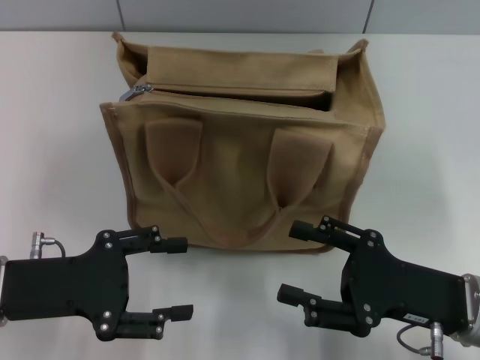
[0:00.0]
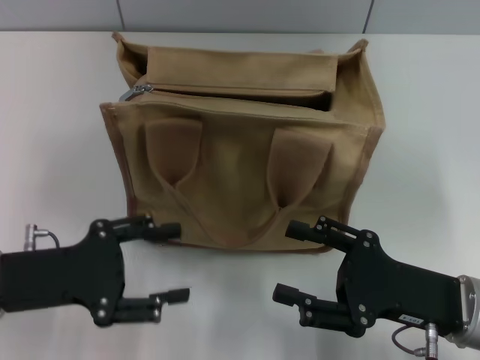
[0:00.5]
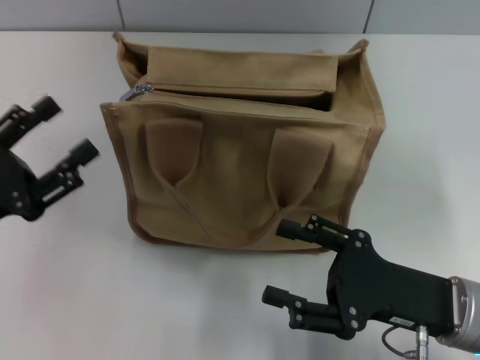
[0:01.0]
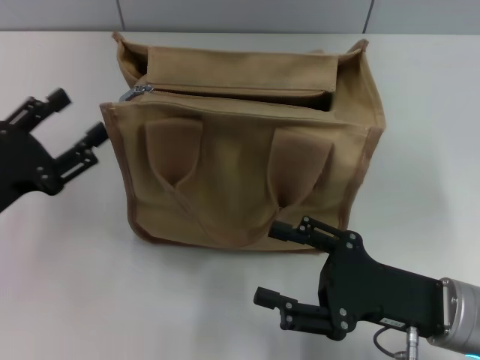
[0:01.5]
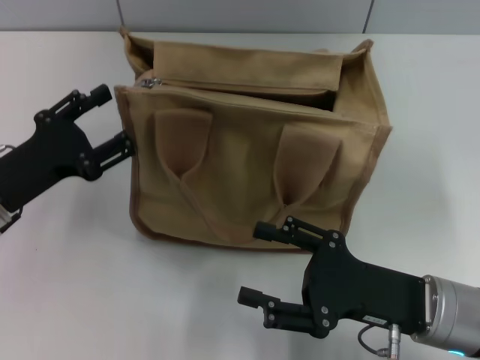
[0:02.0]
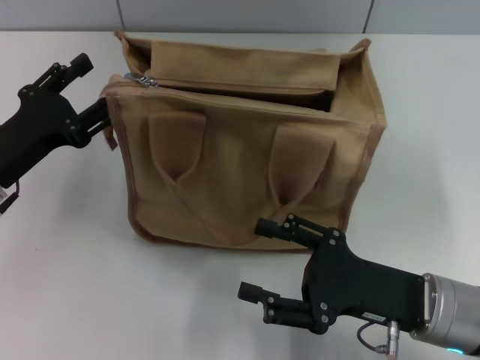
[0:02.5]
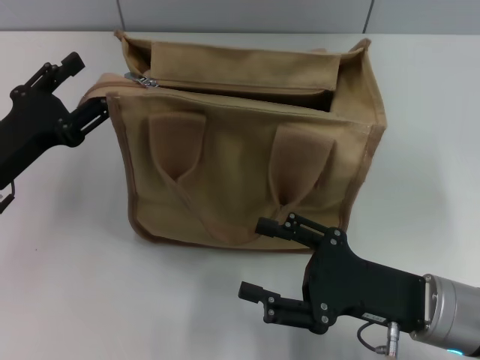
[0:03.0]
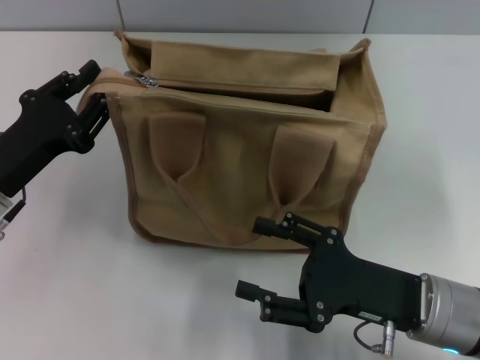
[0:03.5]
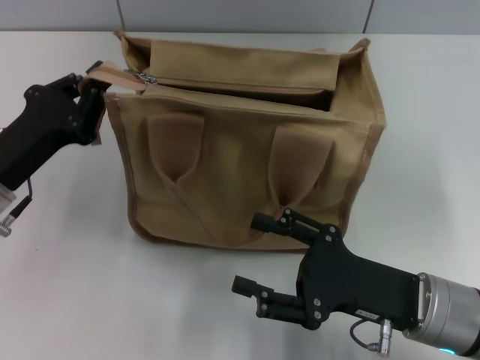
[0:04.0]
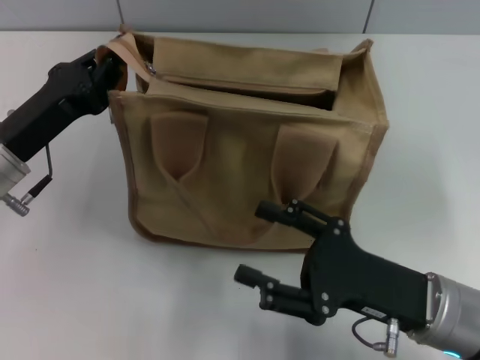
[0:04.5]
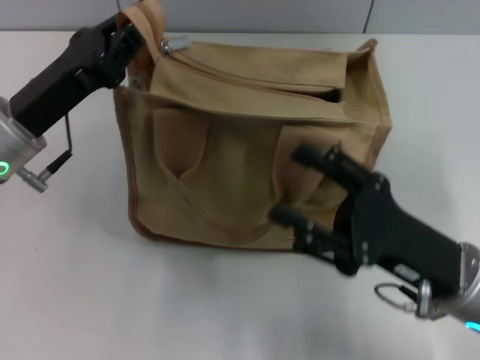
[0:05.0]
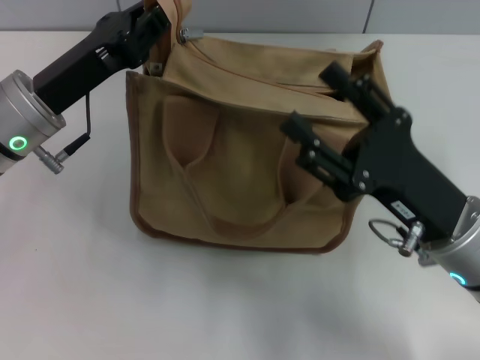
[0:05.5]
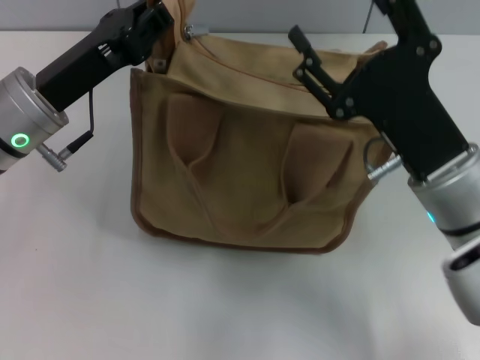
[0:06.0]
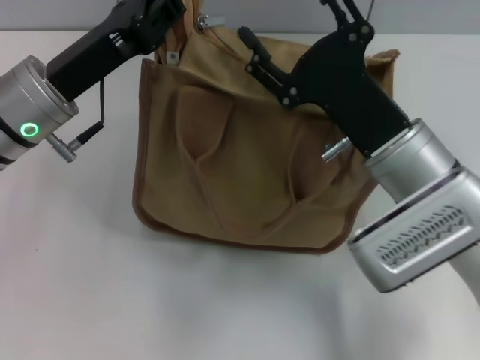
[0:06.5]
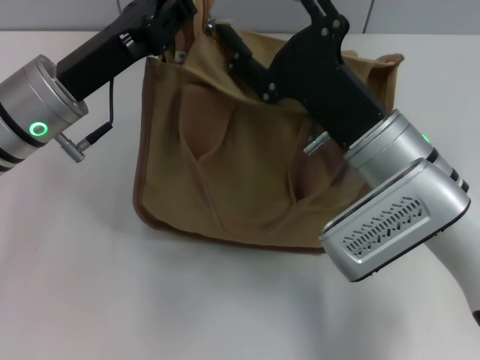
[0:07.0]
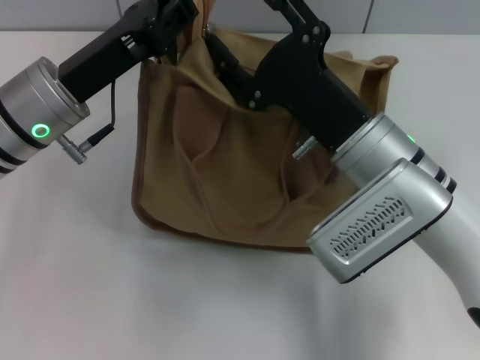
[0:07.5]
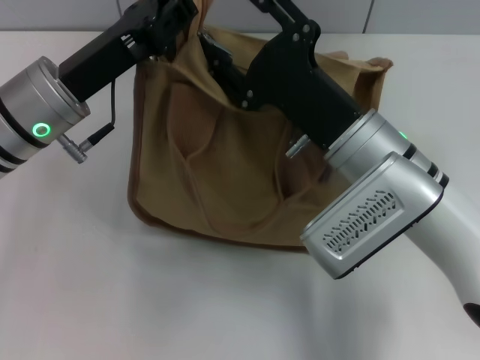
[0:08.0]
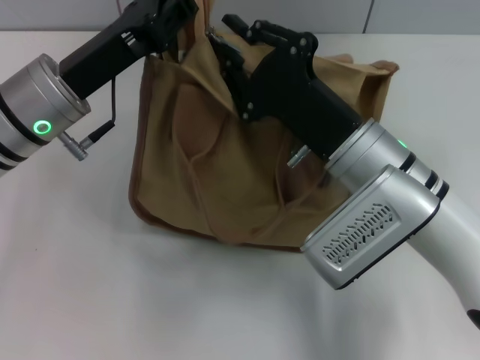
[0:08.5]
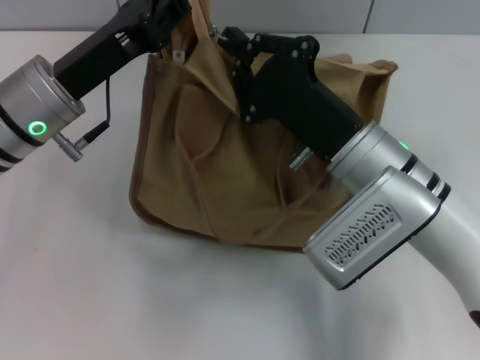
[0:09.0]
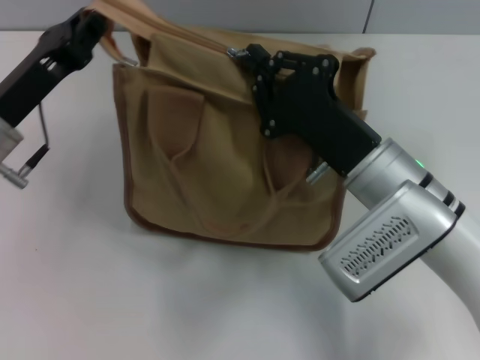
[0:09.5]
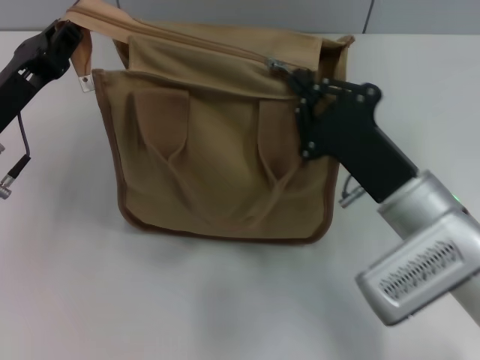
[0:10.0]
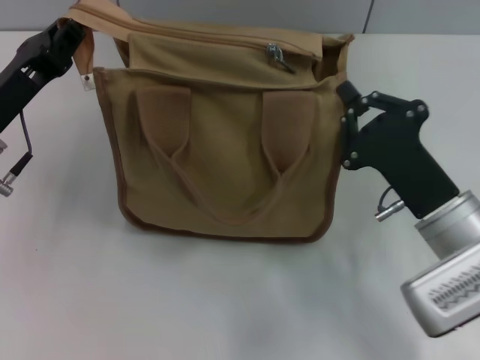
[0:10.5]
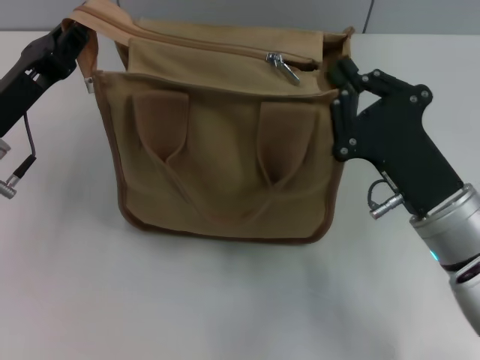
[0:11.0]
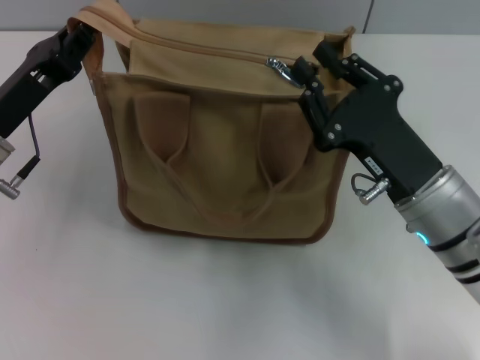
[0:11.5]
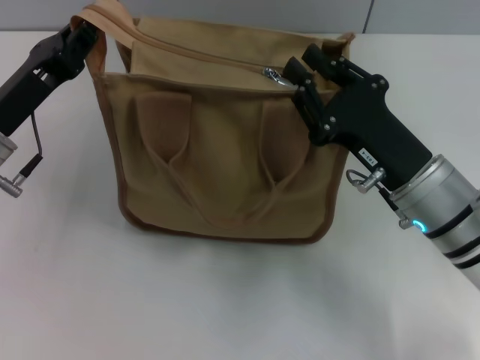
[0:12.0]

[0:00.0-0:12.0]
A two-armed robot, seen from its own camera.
0:02.0 to 0:04.0: The left gripper closes.
0:04.0 to 0:06.0: The right gripper heads upward and forward, covering roughly 10 cm; the left gripper travels forward, upward and to the right by roughly 10 cm.
0:06.0 to 0:08.0: The right gripper heads to the left, covering roughly 5 cm.
0:08.0 to 0:10.0: The left gripper shifts about 5 cm to the left; the right gripper heads to the right, covering roughly 5 cm, and closes its fingers.
0:10.0 to 0:12.0: The right gripper opens its fingers.

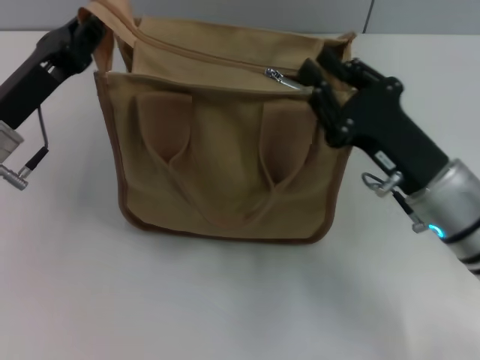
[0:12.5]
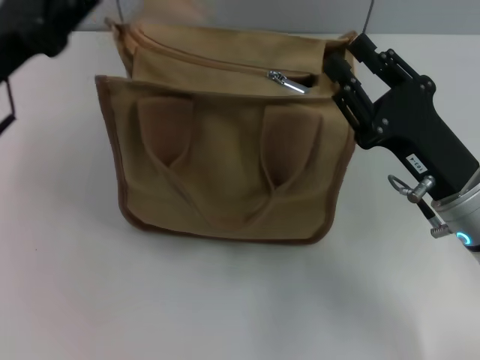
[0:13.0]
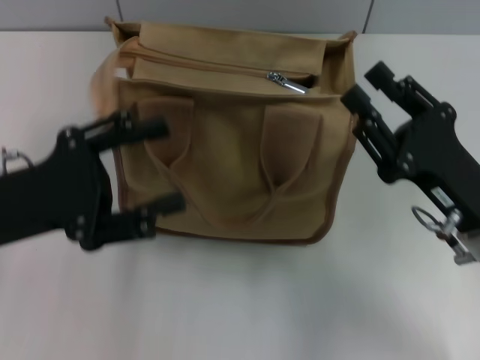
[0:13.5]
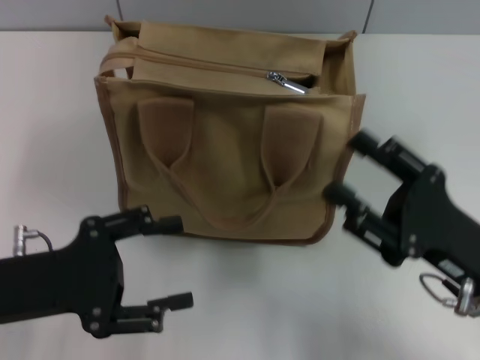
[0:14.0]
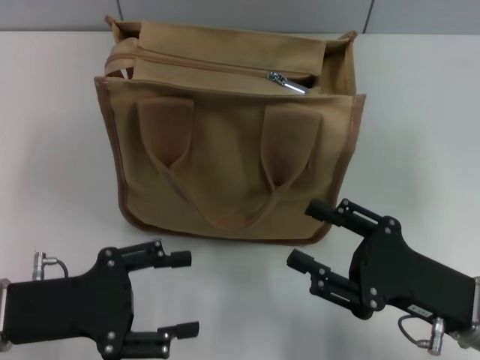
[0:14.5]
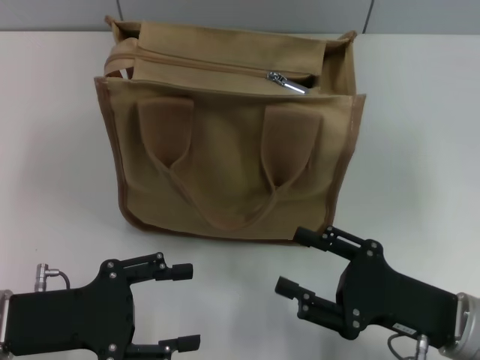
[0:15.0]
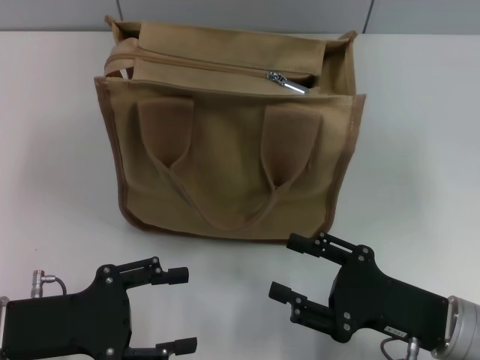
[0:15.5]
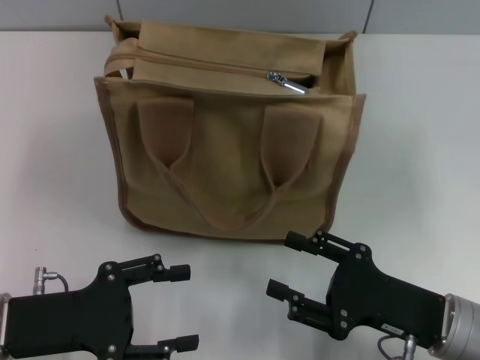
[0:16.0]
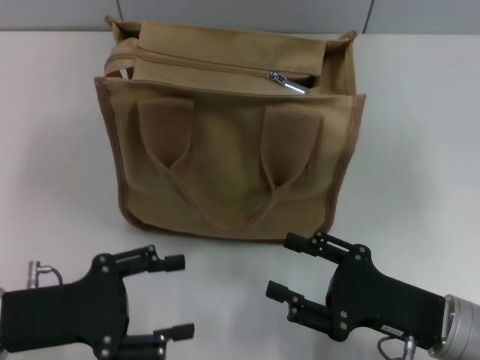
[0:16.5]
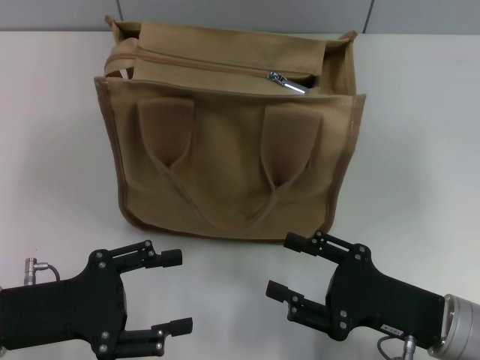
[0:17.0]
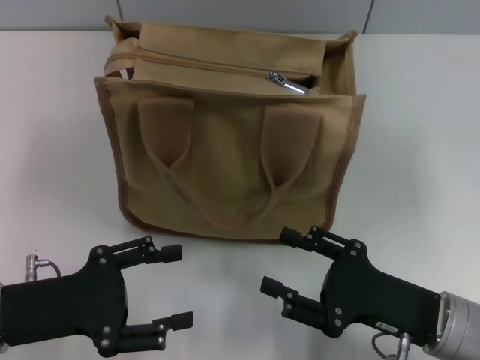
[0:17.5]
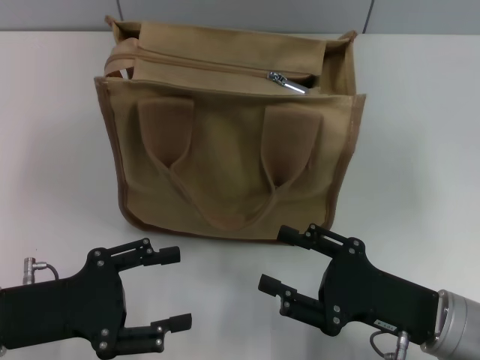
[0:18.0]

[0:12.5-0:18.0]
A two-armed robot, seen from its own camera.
Step, 0:12.5 to 0:13.5: Grab the zipper with your left hand.
0:12.5 to 0:14.5: The two grippers go some 10 cm backward. The left gripper opens up, while the right gripper opens its fingers.
0:14.5 to 0:16.0: The grippers make only small movements.
0:16.0 to 0:18.0: Both grippers stay about where they are.

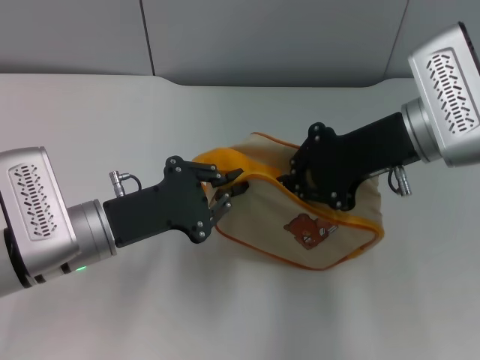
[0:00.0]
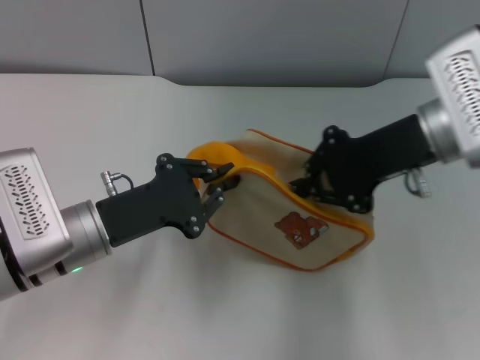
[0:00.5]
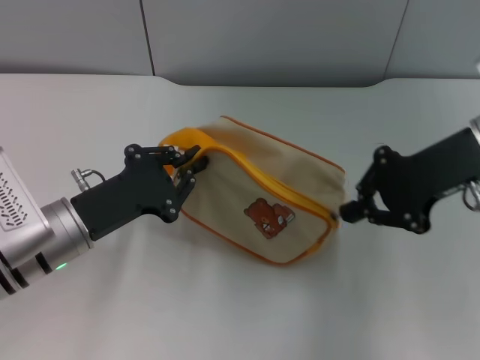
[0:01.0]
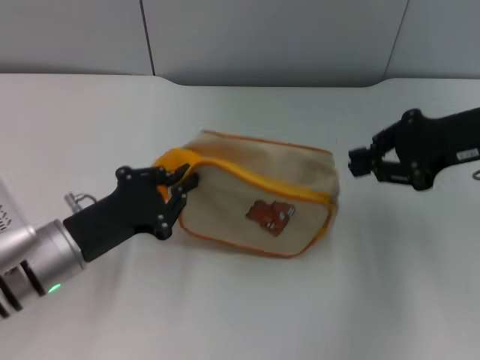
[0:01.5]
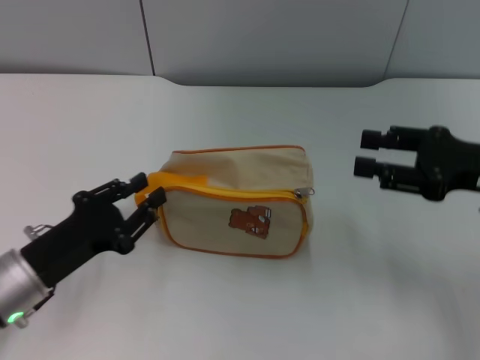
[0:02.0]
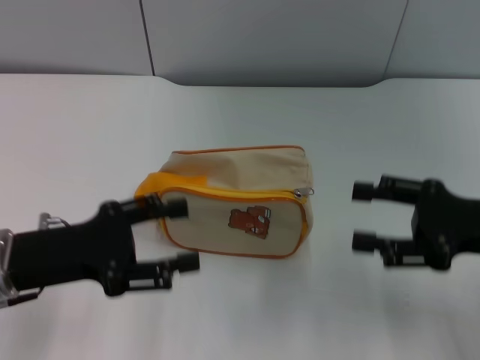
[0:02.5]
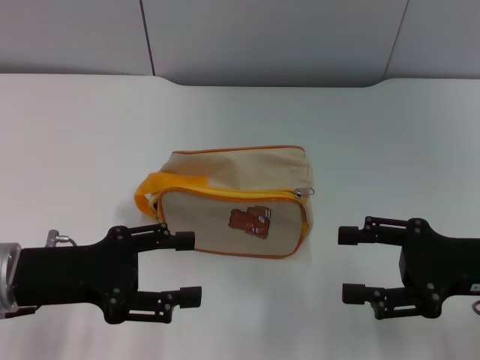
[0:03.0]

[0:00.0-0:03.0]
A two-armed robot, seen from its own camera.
Step, 0:02.0 to 0:02.5: Place the bag on the table with left gripper.
0:00.0 to 0:01.5: The right gripper travels to the right by approximately 10 cm.
0:01.5 to 0:03.0: The left gripper changes place by approximately 5 cm, and opens its fingers, while the right gripper heads backward and downward, covering about 15 cm, and opens its fingers.

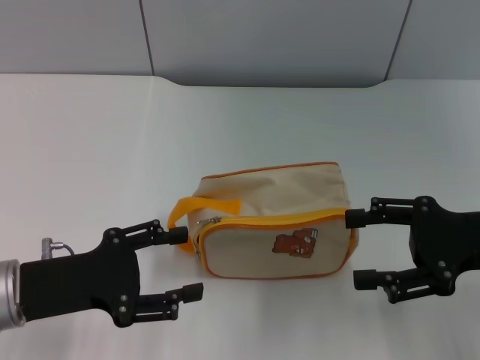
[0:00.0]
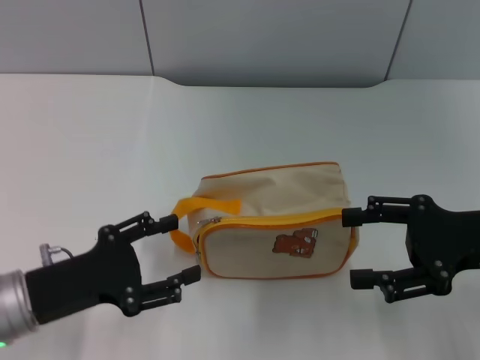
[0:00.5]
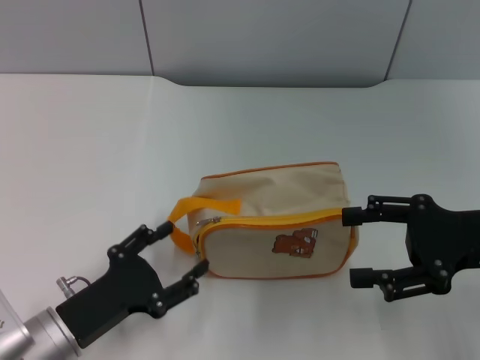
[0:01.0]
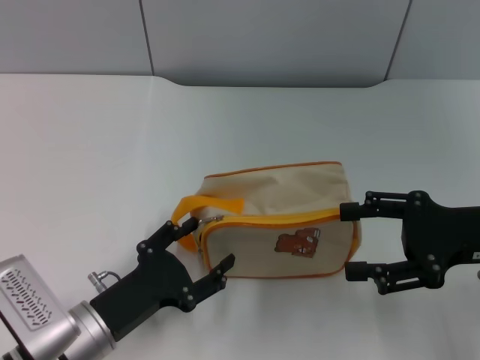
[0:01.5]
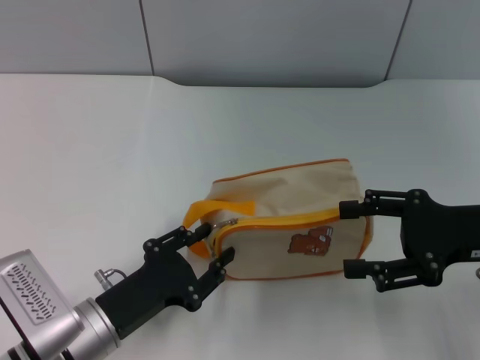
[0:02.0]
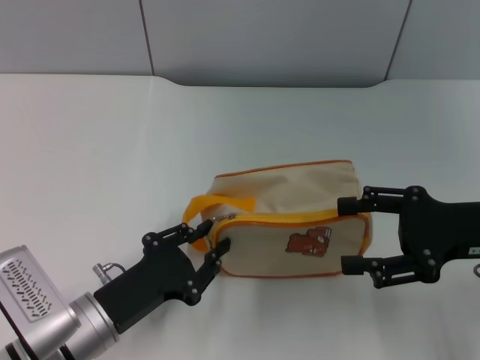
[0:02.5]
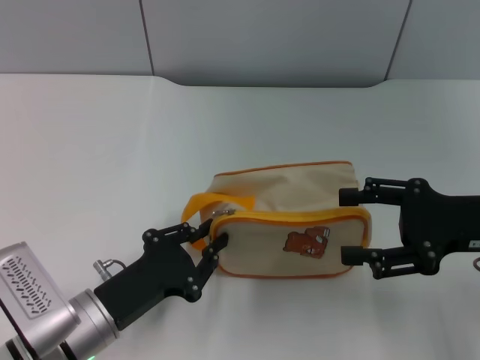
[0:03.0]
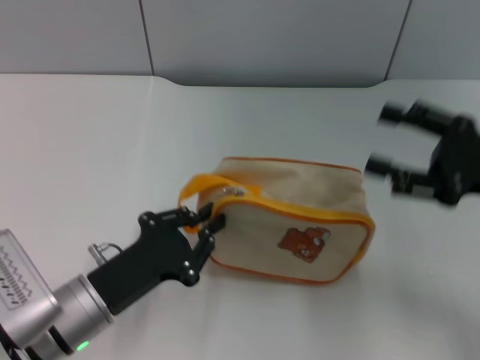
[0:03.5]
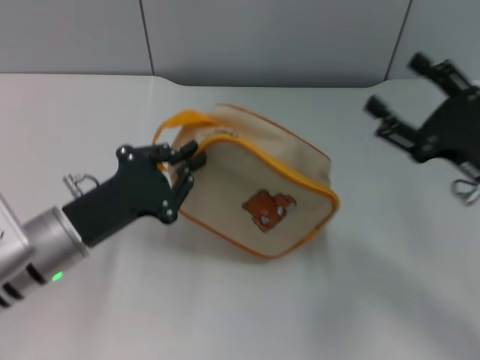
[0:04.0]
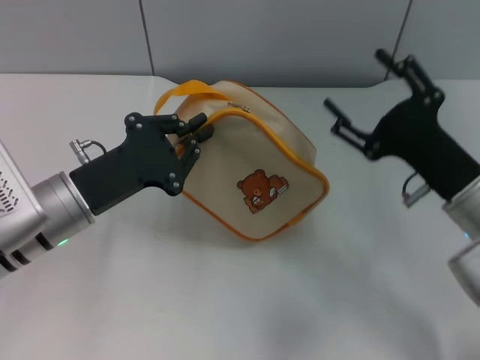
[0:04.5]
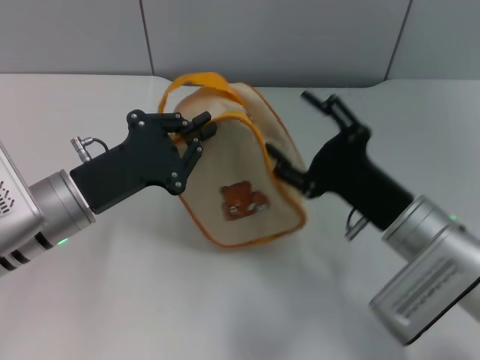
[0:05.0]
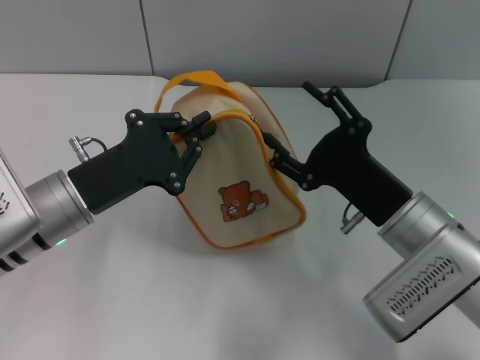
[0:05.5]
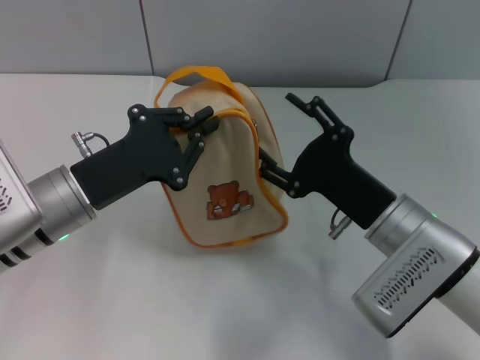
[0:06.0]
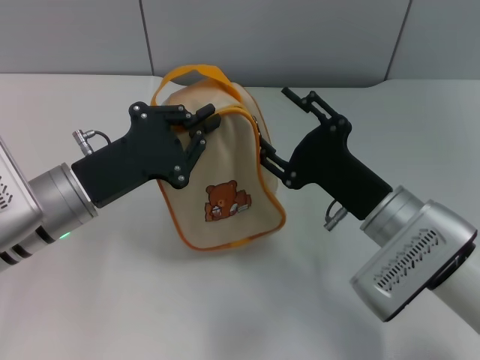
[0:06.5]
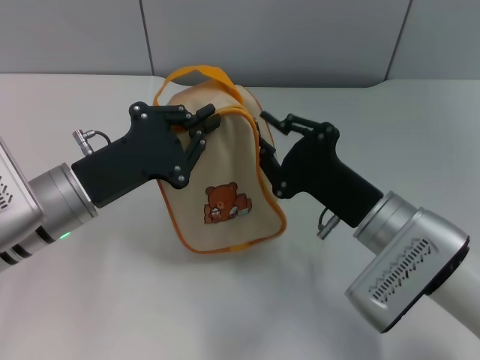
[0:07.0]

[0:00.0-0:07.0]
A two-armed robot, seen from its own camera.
Step, 0:00.0 to 0:03.5: Pick up the bag with left gripper.
0:00.0 to 0:02.0: The left gripper goes approximately 10 cm downward and to the right.
0:02.0 to 0:03.5: The left gripper closes.
0:03.5 to 0:05.0: The left gripper moves forward and upward, about 10 cm, while the right gripper moves to the left and downward, roughly 15 cm.
0:05.0 to 0:07.0: The right gripper closes its fingers.
